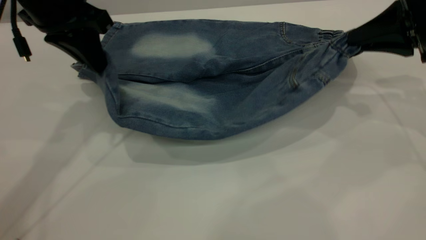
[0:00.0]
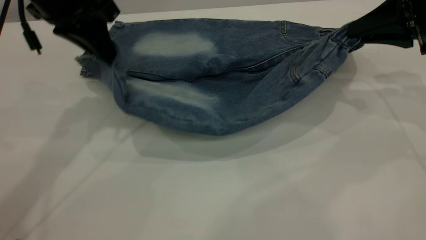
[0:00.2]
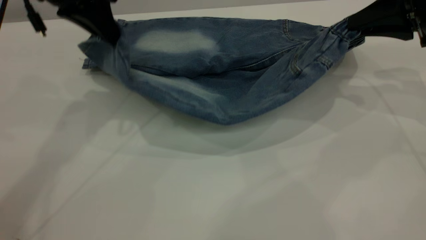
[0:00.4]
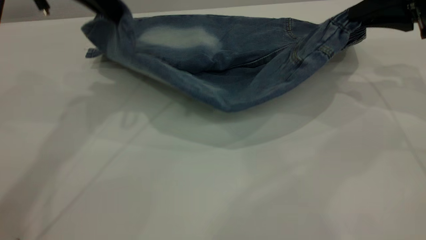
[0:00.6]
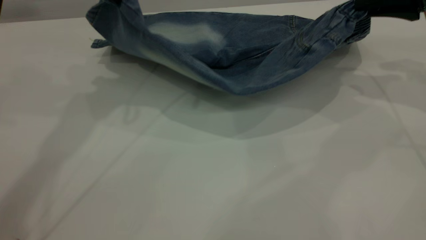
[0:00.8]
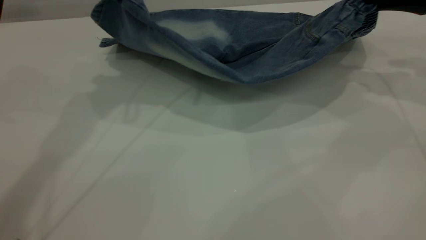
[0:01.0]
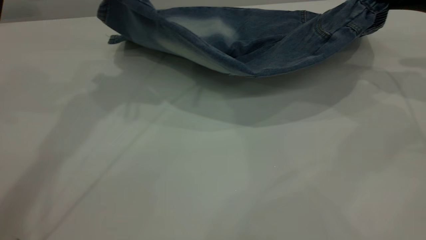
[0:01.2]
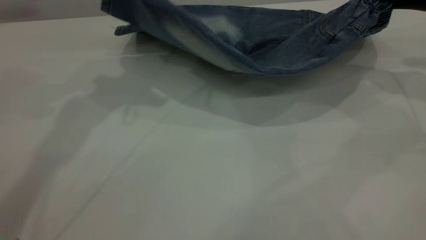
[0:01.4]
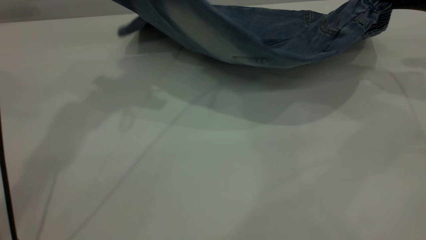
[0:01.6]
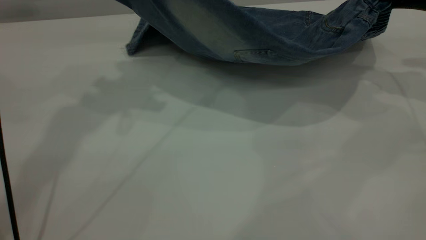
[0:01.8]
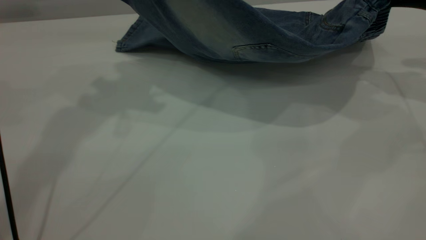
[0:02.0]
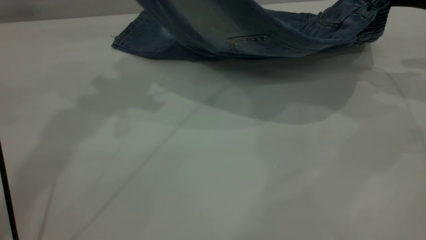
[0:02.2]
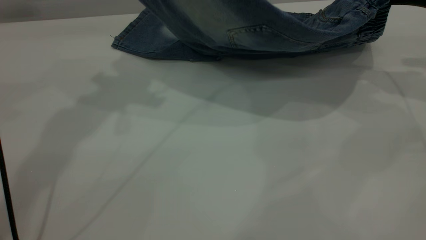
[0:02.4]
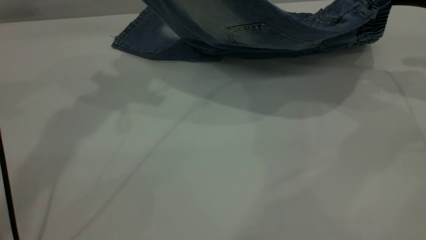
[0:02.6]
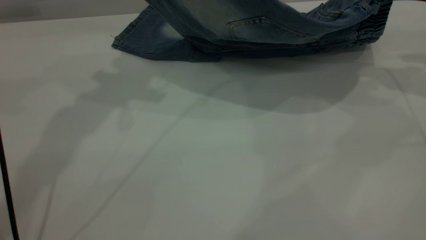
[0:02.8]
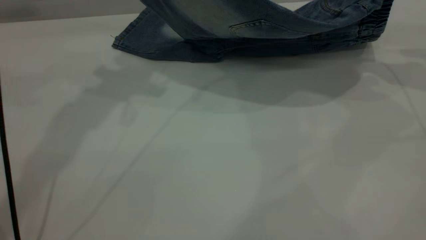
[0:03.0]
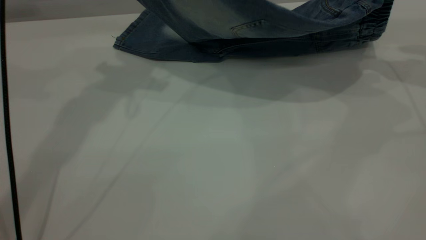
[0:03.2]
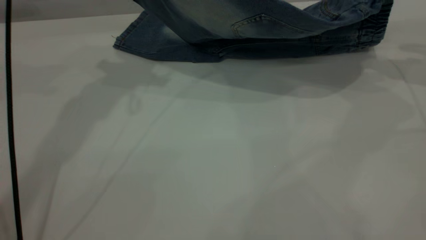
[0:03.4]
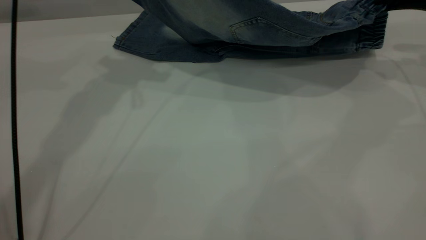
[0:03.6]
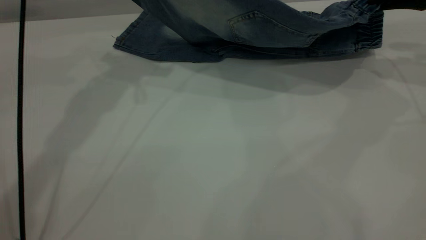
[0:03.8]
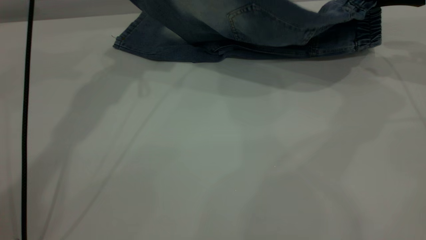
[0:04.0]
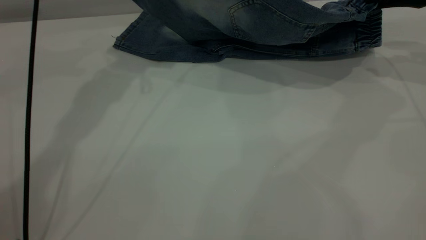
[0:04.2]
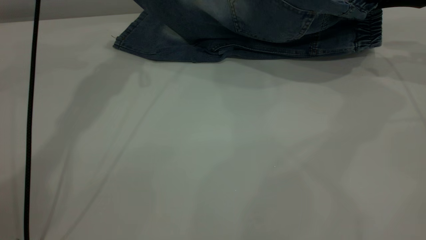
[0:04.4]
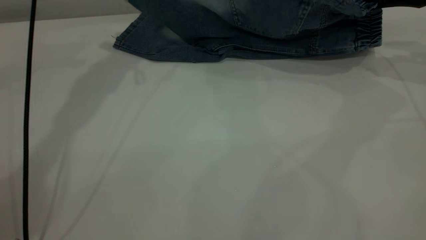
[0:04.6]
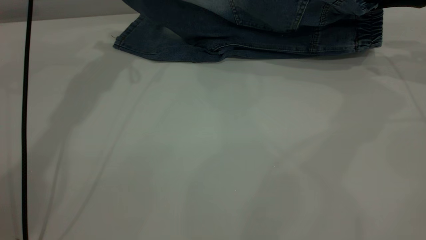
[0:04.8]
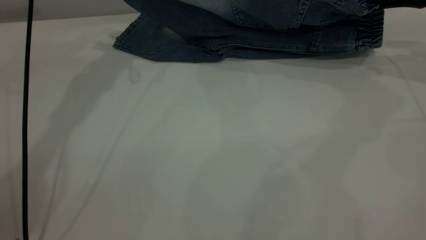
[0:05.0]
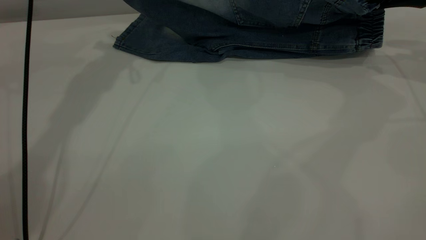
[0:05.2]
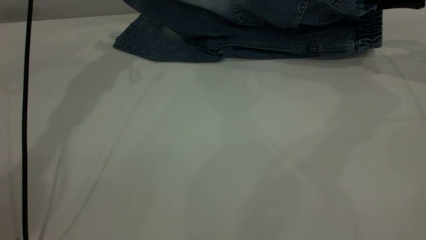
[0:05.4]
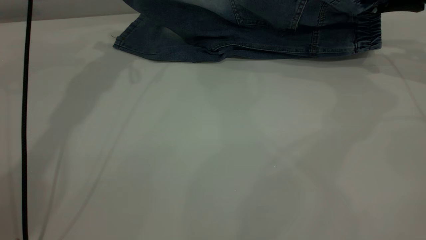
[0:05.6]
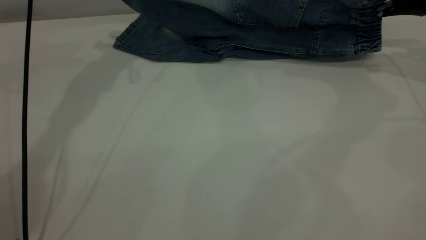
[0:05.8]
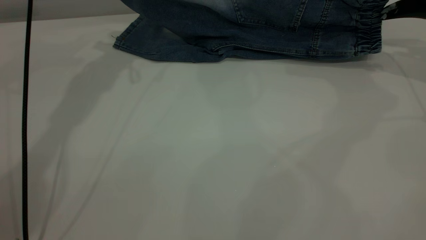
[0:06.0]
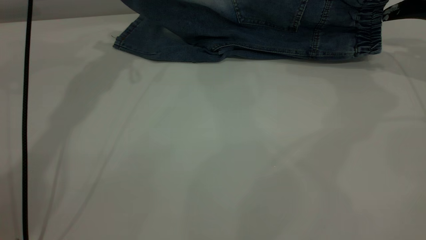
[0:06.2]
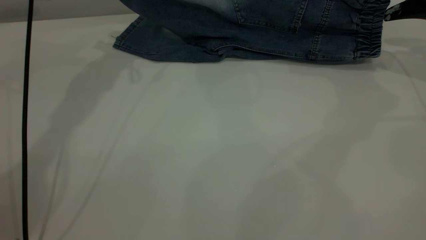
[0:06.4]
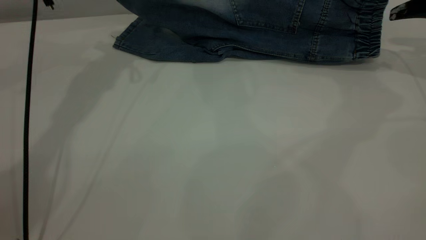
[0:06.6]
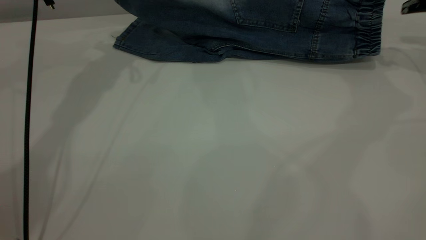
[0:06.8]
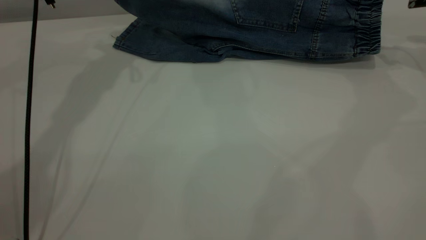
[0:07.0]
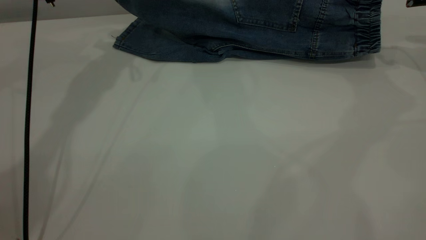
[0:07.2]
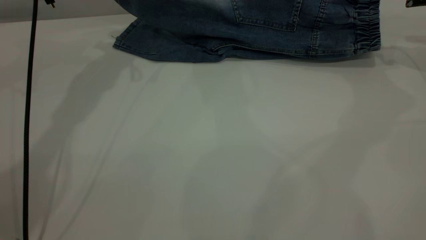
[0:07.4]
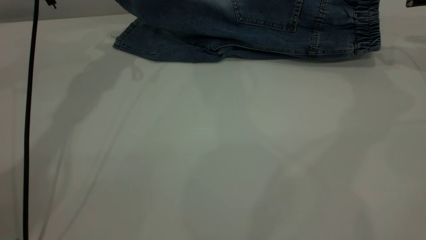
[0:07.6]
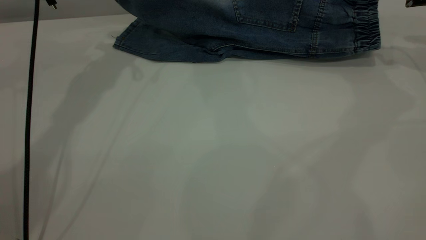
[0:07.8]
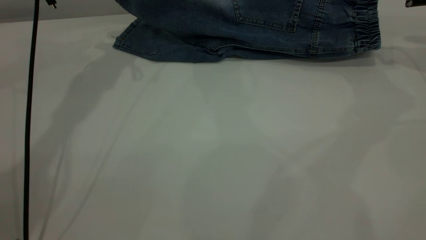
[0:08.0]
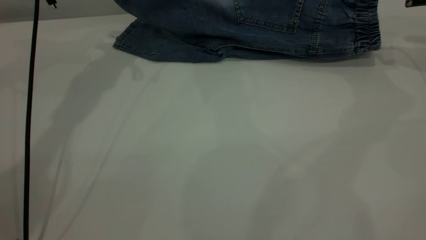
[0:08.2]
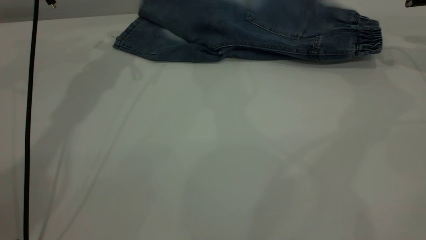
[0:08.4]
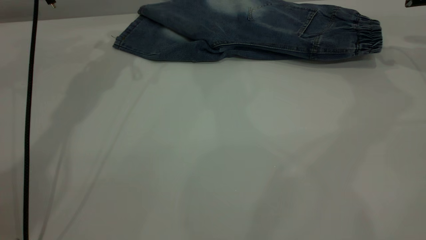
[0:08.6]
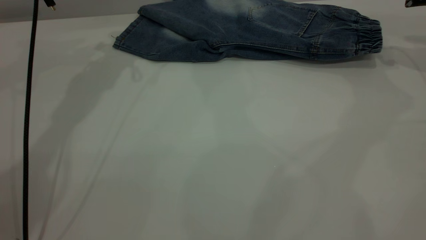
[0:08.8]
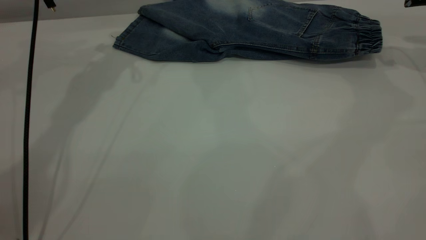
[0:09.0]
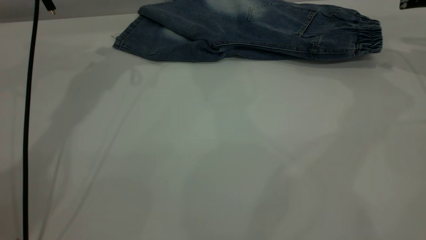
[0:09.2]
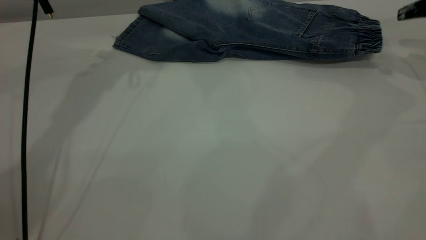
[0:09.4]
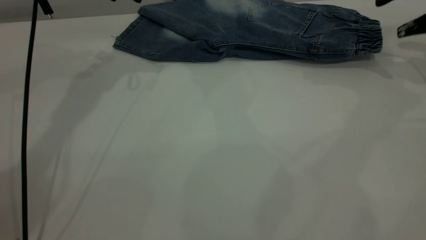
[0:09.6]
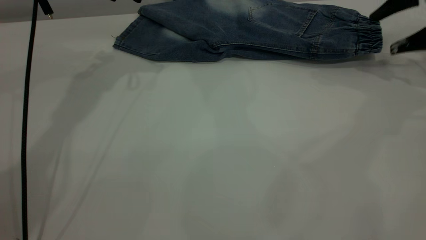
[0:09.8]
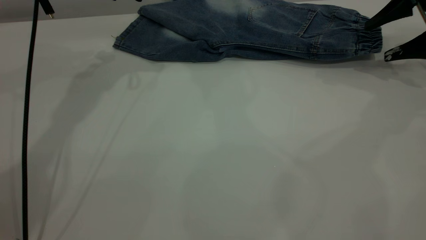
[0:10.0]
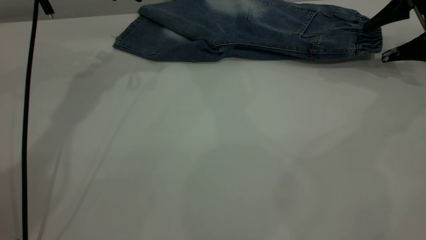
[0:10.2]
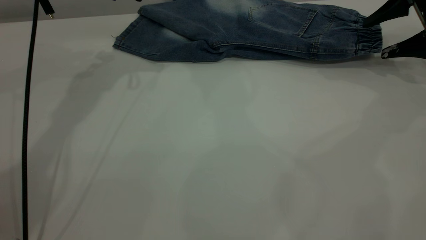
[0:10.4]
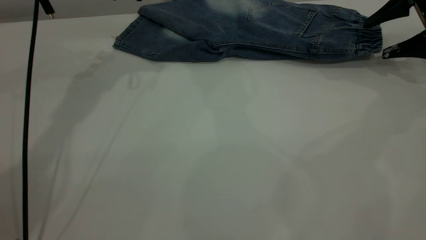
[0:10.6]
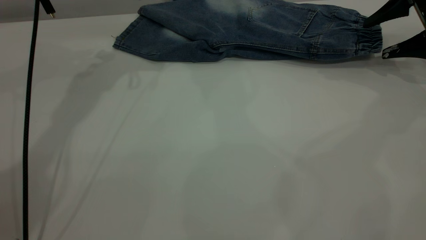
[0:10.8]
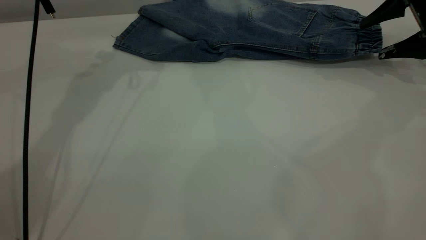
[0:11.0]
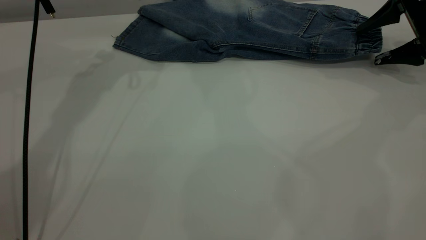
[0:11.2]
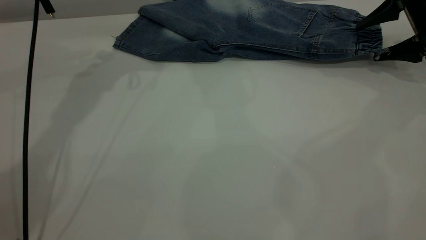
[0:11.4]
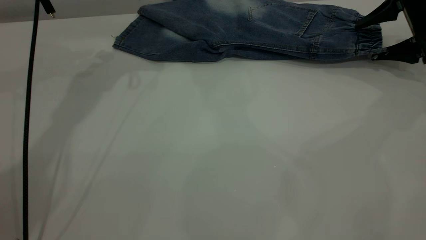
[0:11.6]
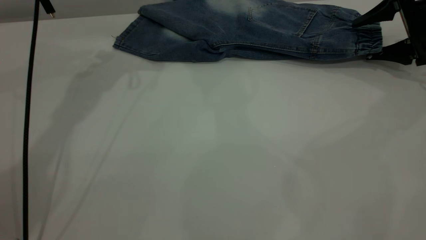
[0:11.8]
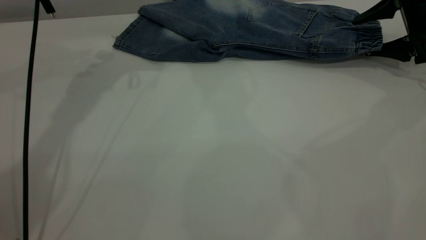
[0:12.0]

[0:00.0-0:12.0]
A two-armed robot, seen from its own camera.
Step, 0:00.0 to 0:08.6: Fold the bottom of the pants upward.
0:00.0 to 0:01.6: The right gripper changes place by about 5 cm, while the left gripper travels upward by roughly 10 cm.
0:01.6 to 0:03.0: The grippers move only a little.
0:03.0 to 0:04.4: The left gripper travels forward and downward by approximately 10 cm.
0:04.4 to 0:06.0: The right gripper opens its fingers.
0:06.0 to 0:07.6: The grippers move only a little.
0:07.6 to 0:09.0: The left gripper opens its fingers.
0:09.0 to 0:10.4: The right gripper is displaced downward by about 5 cm.
0:10.4 to 0:12.0: The grippers make only small movements.

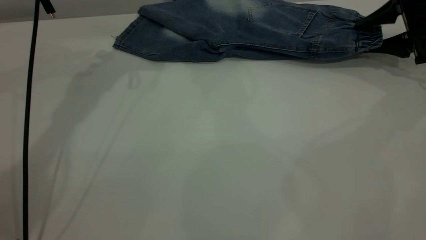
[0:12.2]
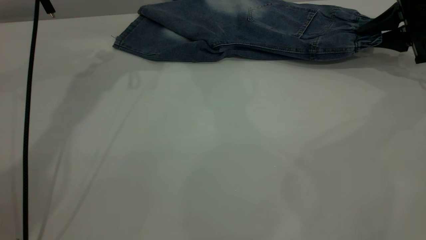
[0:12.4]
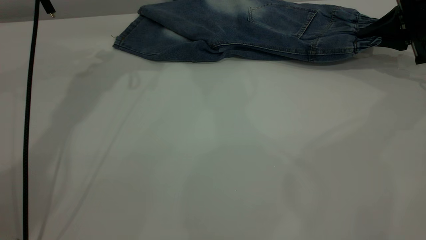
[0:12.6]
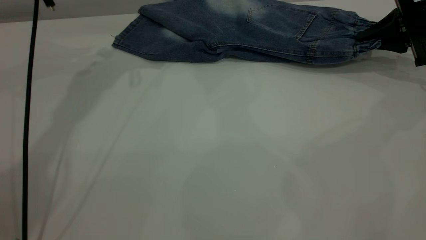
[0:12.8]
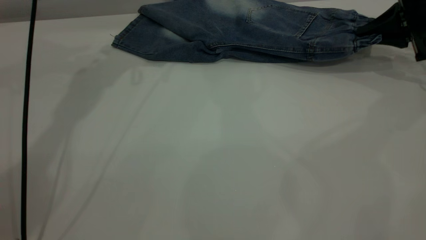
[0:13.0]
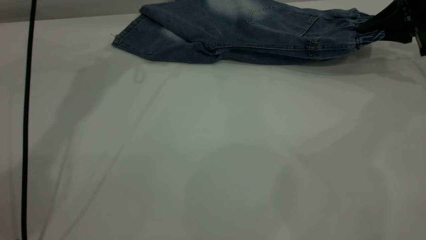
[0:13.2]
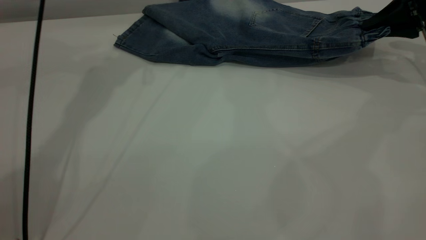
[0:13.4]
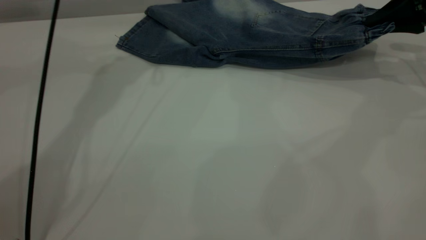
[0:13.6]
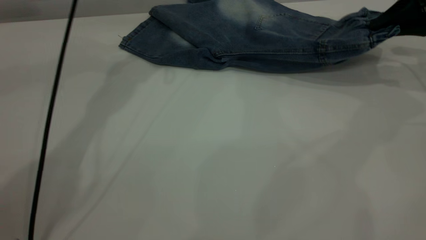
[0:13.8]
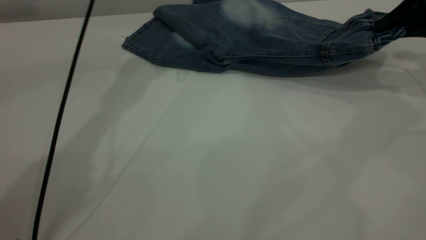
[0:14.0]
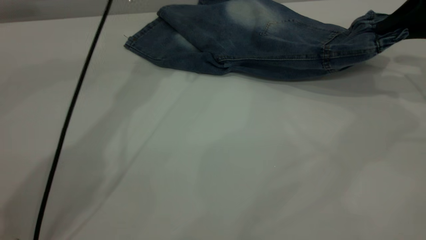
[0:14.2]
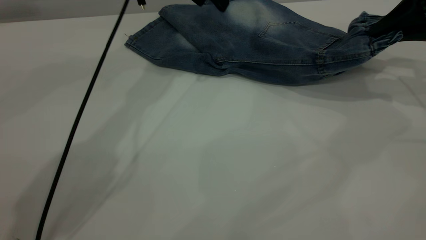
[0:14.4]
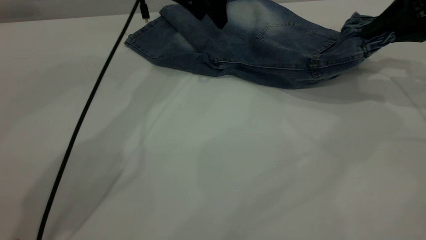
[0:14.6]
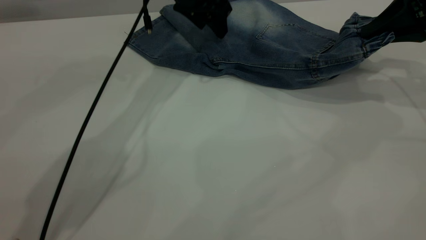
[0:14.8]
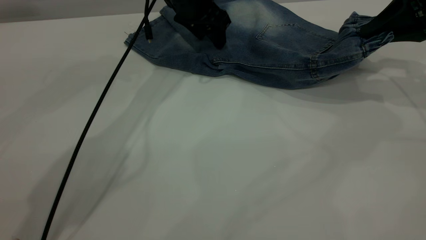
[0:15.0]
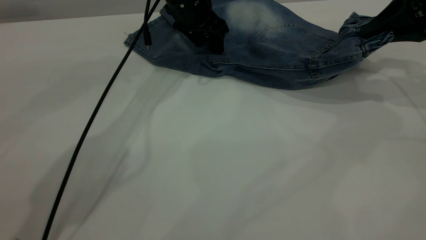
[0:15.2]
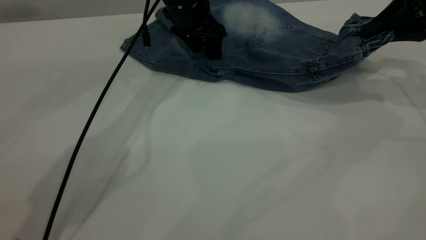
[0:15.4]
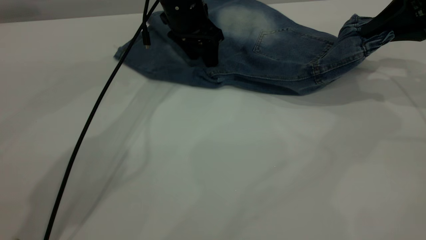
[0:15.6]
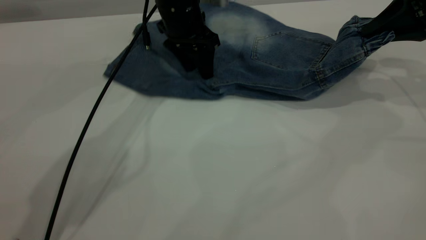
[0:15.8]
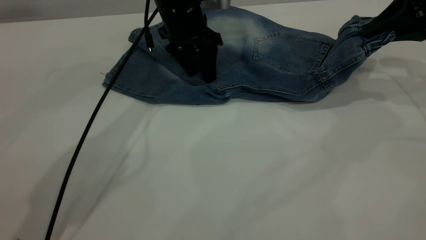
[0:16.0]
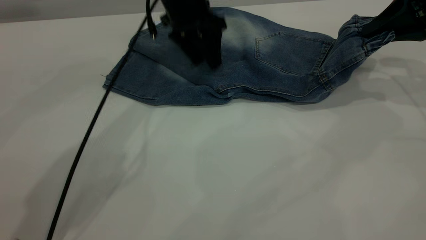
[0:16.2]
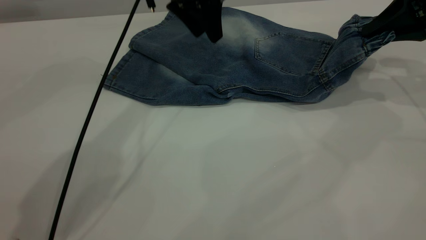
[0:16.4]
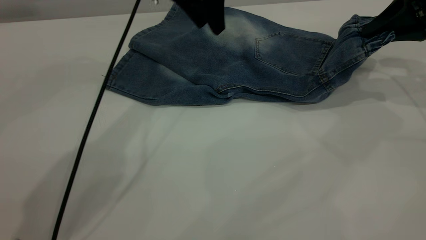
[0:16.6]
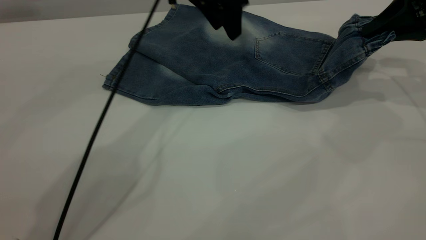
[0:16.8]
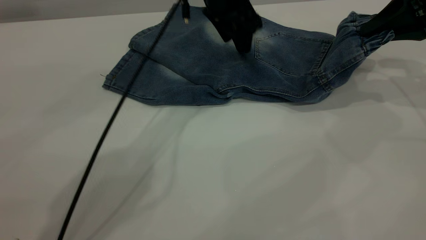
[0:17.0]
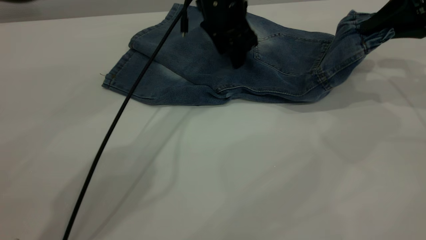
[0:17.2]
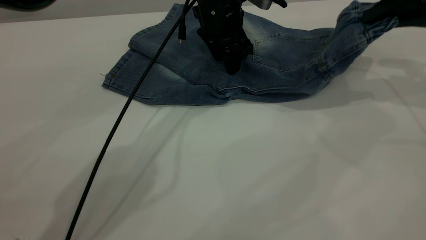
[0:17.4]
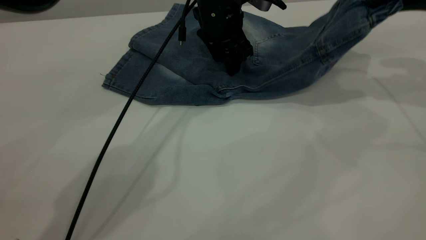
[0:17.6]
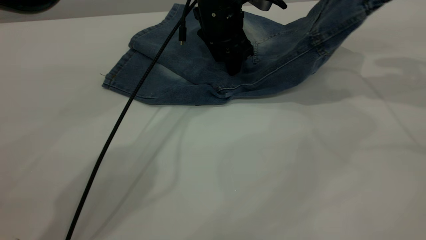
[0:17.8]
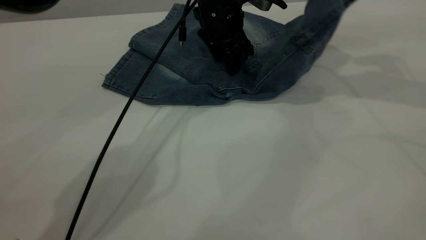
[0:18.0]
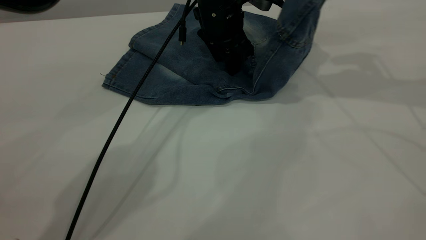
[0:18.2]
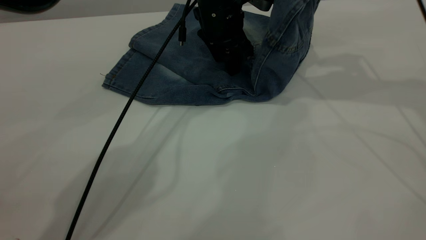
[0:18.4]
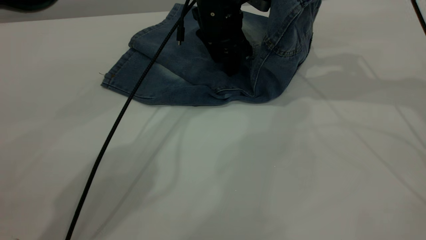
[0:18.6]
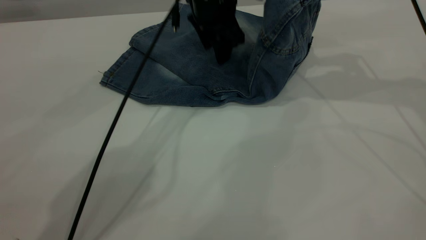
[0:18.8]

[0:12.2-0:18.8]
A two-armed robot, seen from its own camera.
0:12.2 to 0:13.8: The right gripper travels upward by approximately 5 cm, and closes. The left gripper moves to the right, approximately 5 cm.
0:13.8 to 0:15.4: The left gripper moves downward and to the right, some 15 cm.
0:15.4 to 0:17.2: The left gripper heads to the right, covering approximately 5 cm, and goes upward and returns, about 10 cm each way.
0:17.2 to 0:18.8: The right gripper goes roughly 10 cm to the left and upward.
